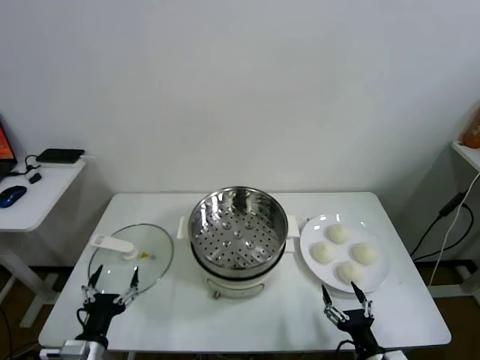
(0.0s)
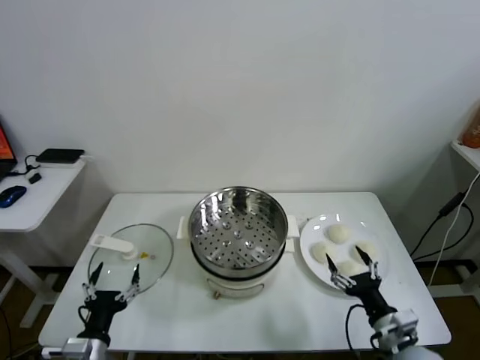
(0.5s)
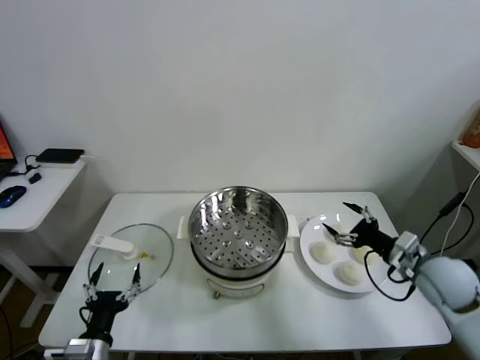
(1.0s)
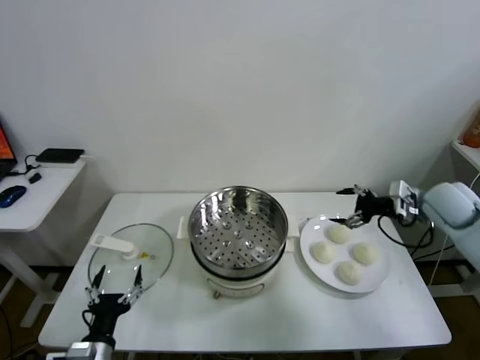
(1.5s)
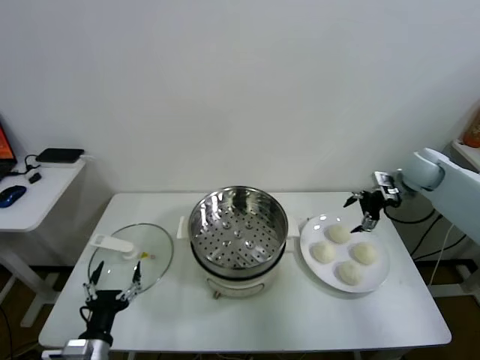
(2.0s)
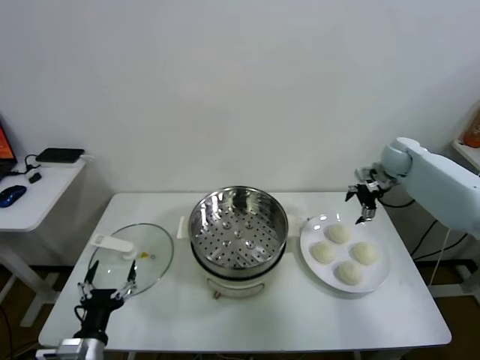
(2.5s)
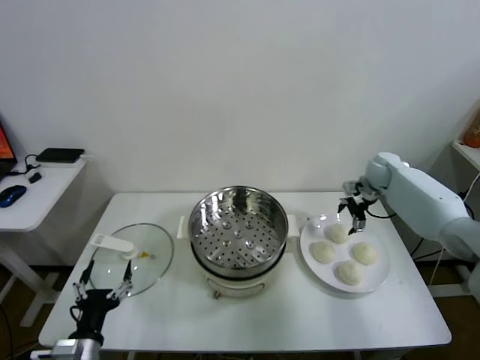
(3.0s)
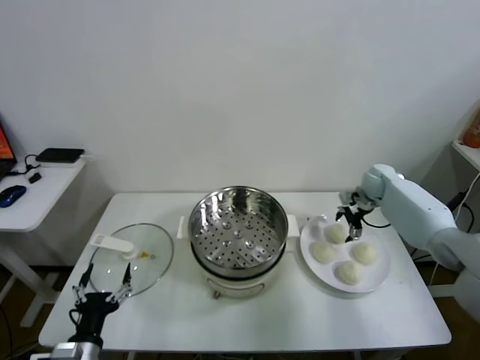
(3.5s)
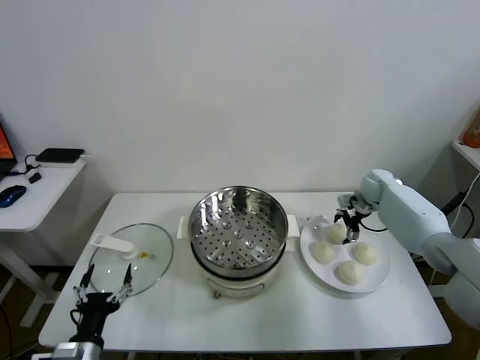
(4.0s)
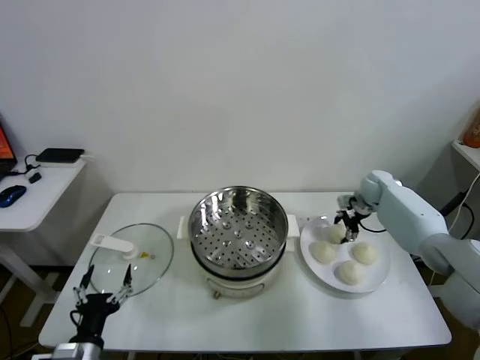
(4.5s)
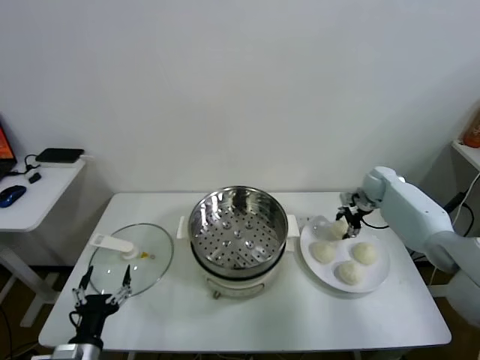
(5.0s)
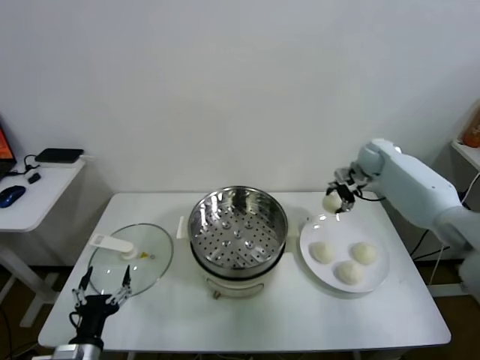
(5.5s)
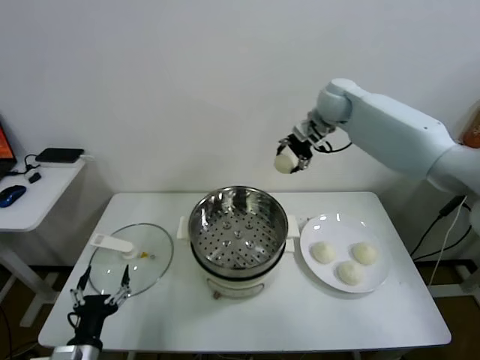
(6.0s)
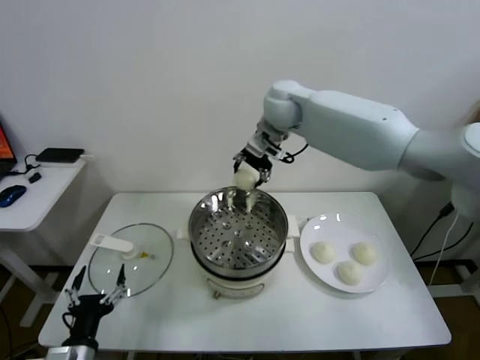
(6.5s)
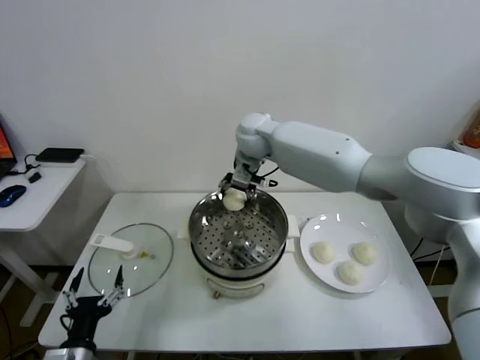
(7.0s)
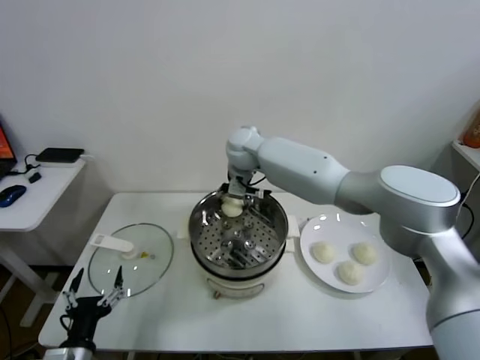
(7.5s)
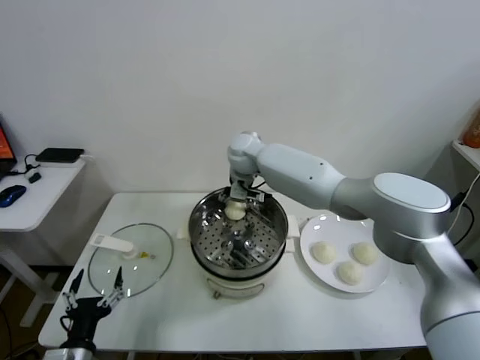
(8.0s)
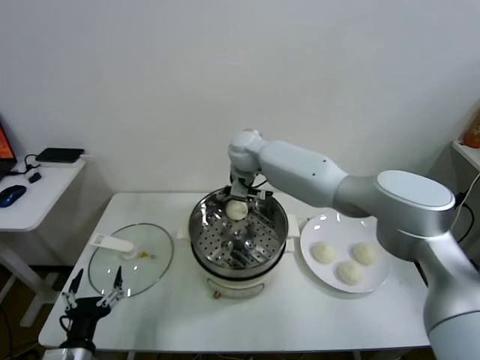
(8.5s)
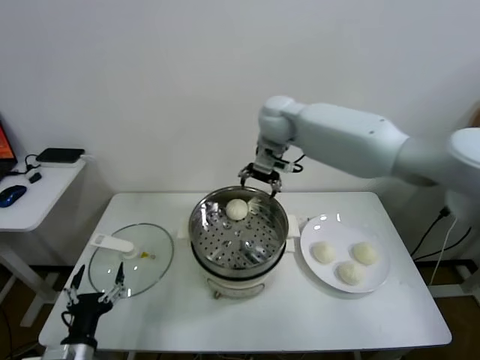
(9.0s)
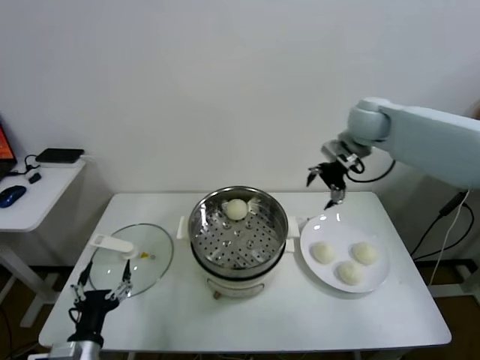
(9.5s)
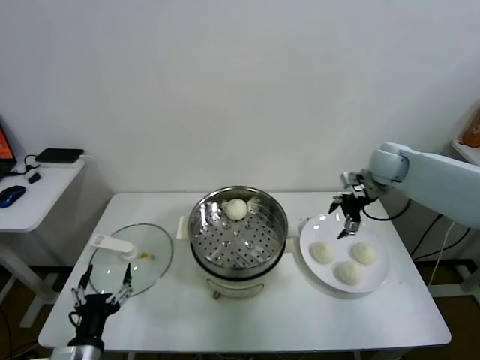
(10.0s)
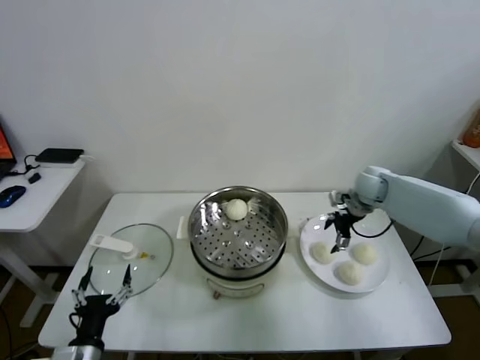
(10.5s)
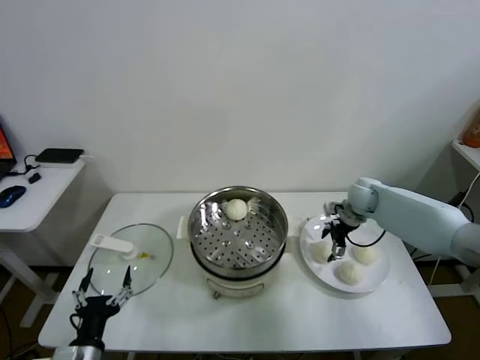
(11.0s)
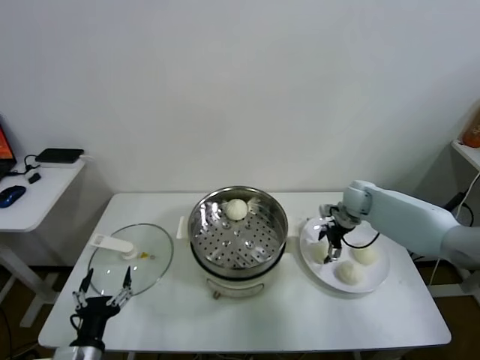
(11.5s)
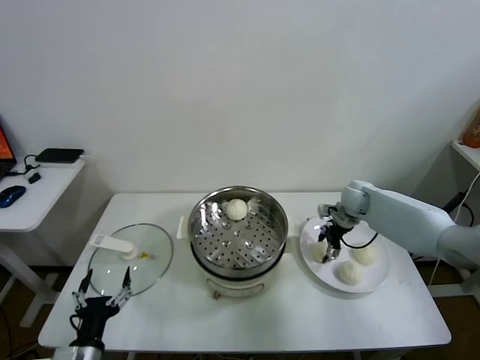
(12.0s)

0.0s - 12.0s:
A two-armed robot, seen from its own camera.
Task of the whole recording: take steamed baozi put them in steamer.
Step, 0.0s - 4.5s: Grasp the baozi in the plate with right gripper.
Step, 5.0s - 8.0s: Place the baozi on the steamer with right gripper.
2.0s - 4.0s: The right gripper moves downward and forward, about 15 cm.
4.0s - 6.0s: The right gripper goes some 35 cm upward and to the left, and closes its fingers.
6.0s - 8.0s: The right gripper shifts approximately 20 cm to the left and downward, and opens its fingers.
8.0s - 10.0s: The right gripper is displaced to the right by about 35 cm.
10.0s - 12.0s: The right gripper heads downward, covering approximately 10 cm, and closes.

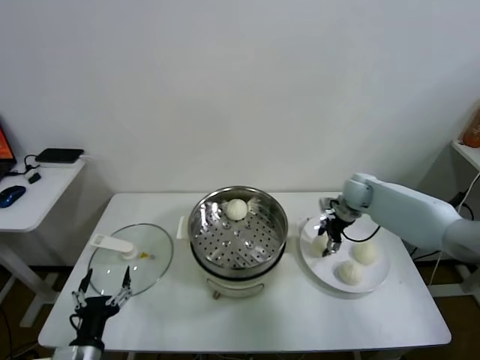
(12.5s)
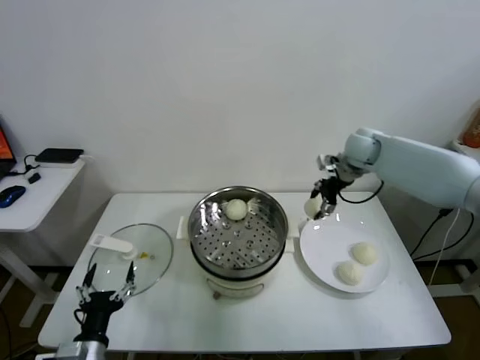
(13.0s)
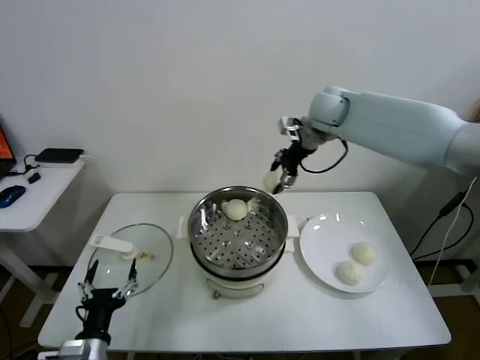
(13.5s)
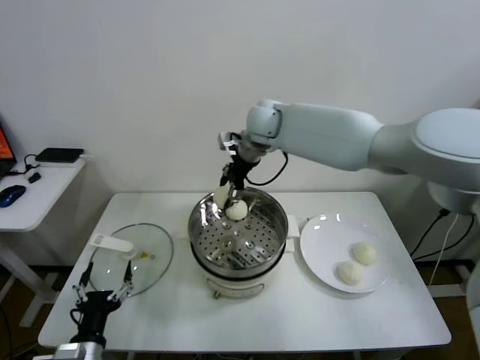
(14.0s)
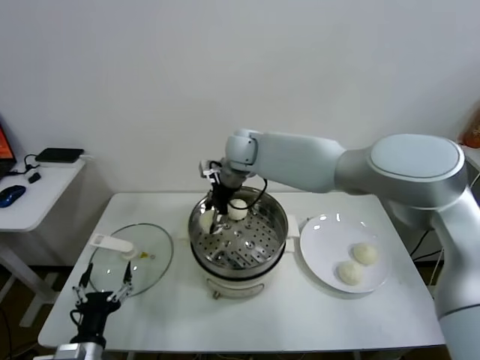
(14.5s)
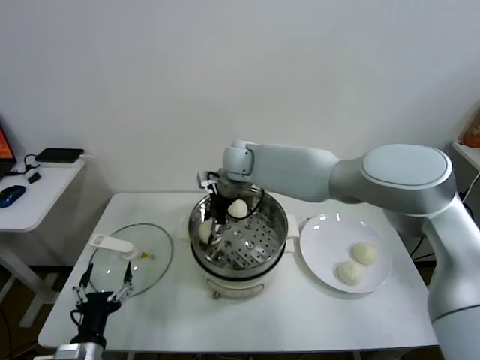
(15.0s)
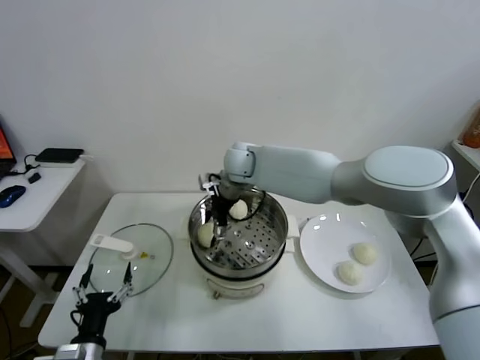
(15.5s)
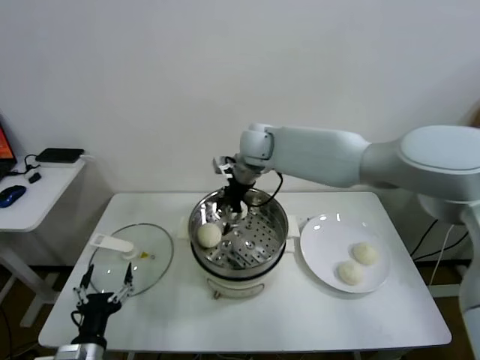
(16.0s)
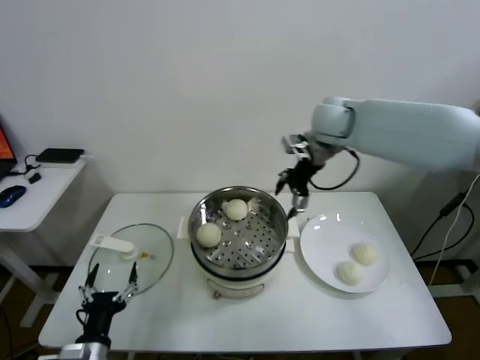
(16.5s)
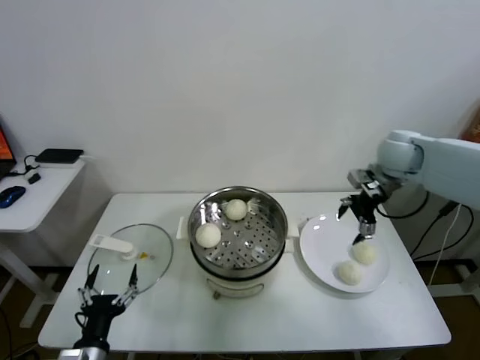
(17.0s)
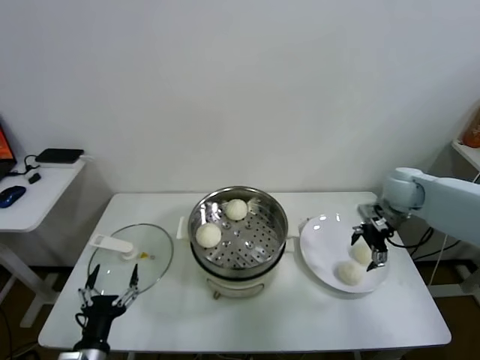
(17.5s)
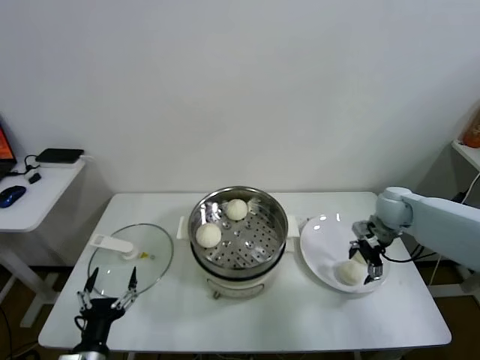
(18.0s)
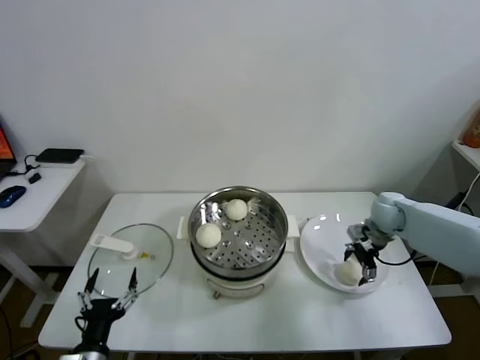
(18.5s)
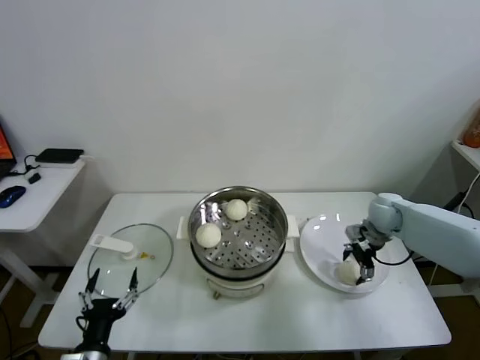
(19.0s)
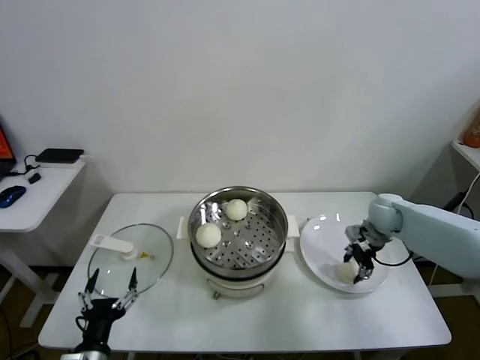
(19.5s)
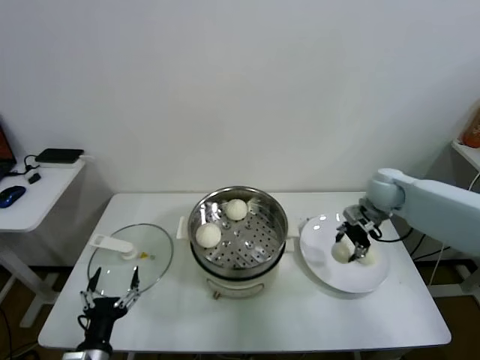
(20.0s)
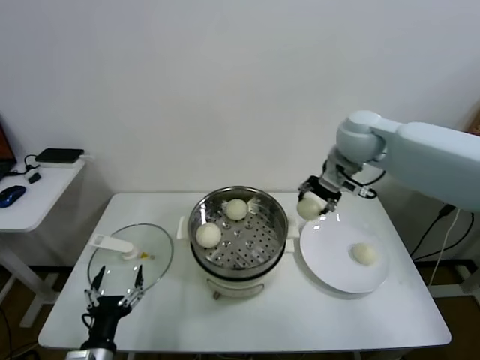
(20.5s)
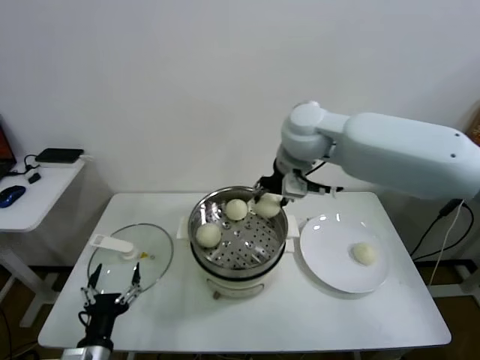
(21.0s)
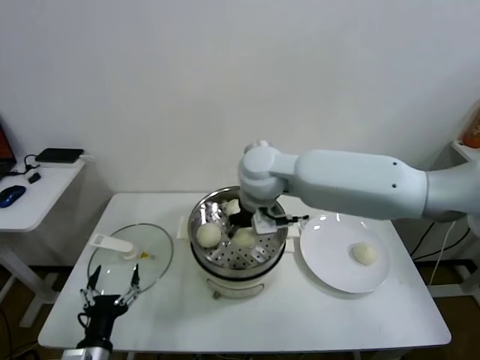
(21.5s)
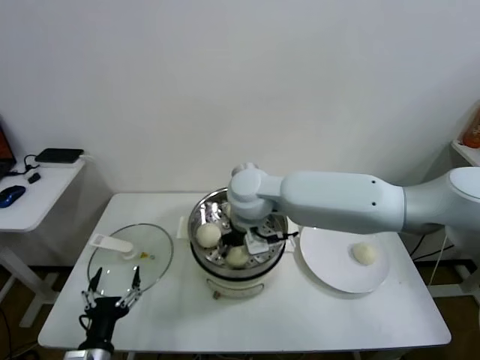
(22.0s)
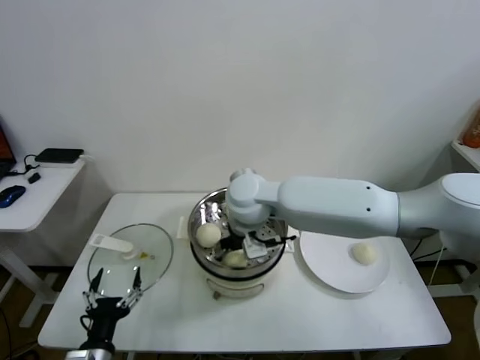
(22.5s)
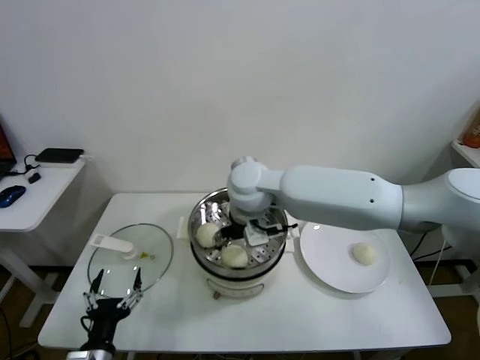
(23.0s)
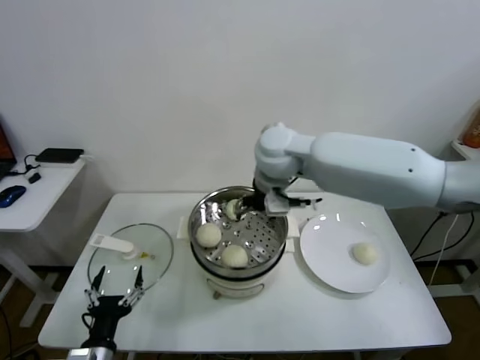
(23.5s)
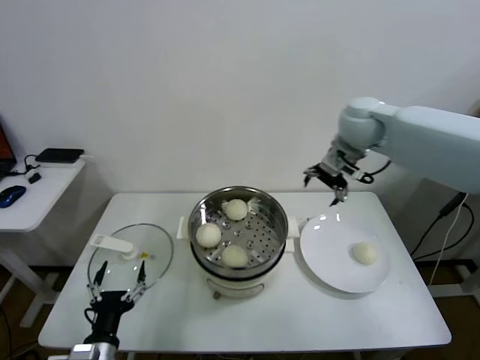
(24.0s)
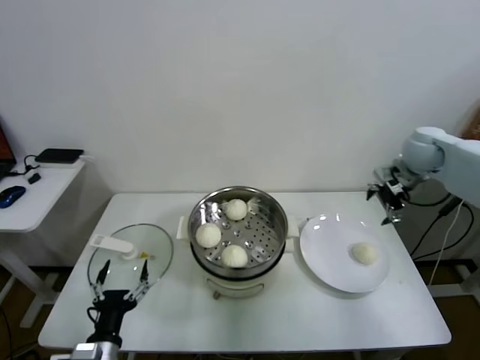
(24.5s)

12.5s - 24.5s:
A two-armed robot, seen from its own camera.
Task of the whole recording: take steamed baozi put them in steamer.
Step, 12.5s - 15.5s: Place the baozi on the steamer with right gripper.
Step, 16.0s - 19.0s: Grasp the baozi in the plate with right gripper.
Step, 19.5s - 22.5s: Place the baozi on the steamer with right gripper.
12.5s - 14.5s: The right gripper is displaced to the left by some 30 cm.
14.5s - 16.5s: The right gripper shifts about 25 cm to the right and upward, and opens.
16.5s - 18.5s: The right gripper travels downward and to the right by some 30 cm.
18.5s - 20.5s: The right gripper moves upward and to the left, roughly 30 cm, and closes its fingers.
20.5s - 22.5s: The right gripper travels to the left and downward by approximately 25 cm, and opens.
22.5s - 24.5s: The right gripper goes approximately 40 cm to the right.

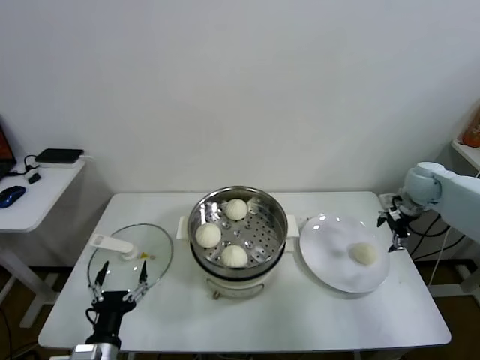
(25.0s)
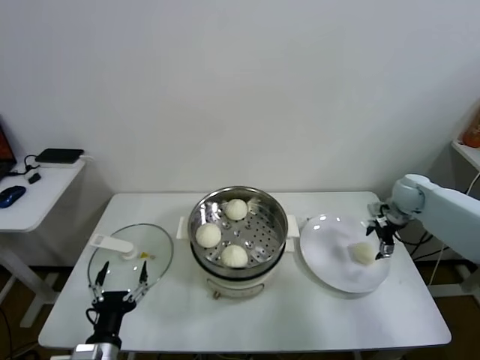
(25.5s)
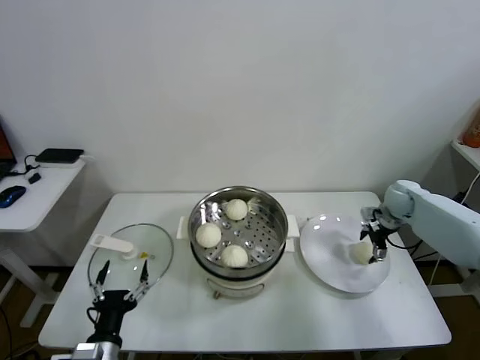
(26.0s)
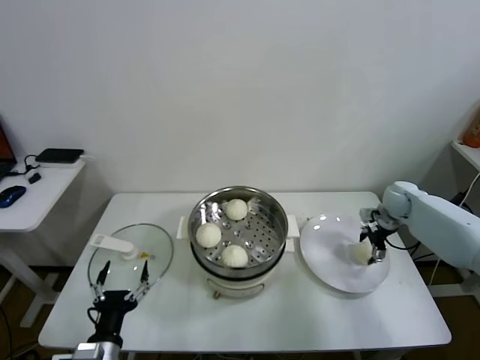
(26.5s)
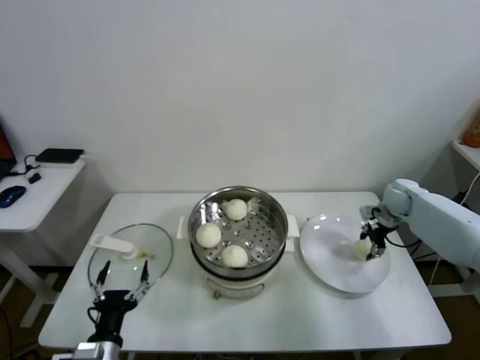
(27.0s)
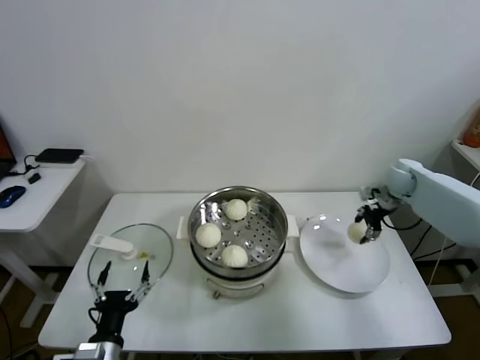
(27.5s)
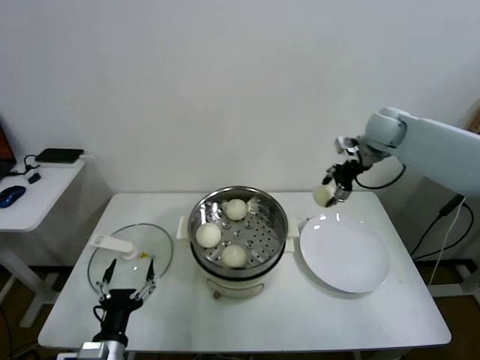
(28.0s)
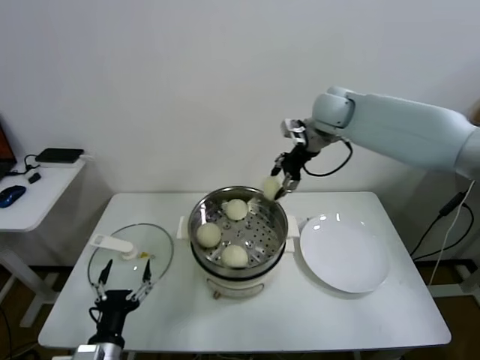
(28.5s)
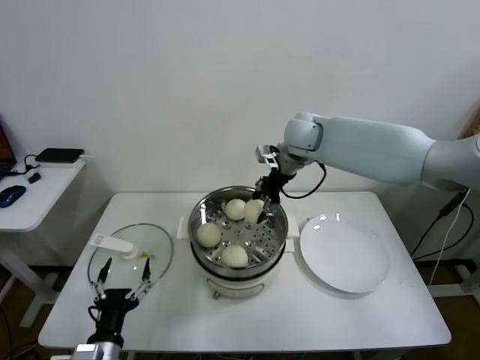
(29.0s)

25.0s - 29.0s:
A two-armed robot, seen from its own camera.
Task of the whole recording: take steamed baozi put them in steamer.
25.0s - 27.0s: The right gripper is displaced downward by roughly 10 cm, and closes its fingers.
27.0s - 29.0s: The right gripper is displaced to the left and upward by approximately 35 cm.
